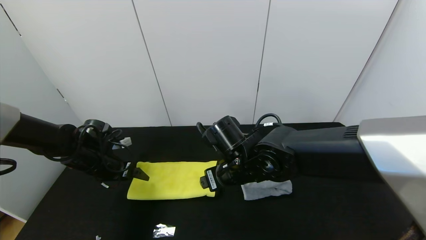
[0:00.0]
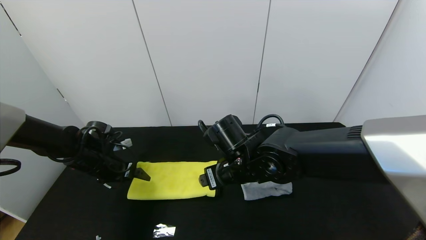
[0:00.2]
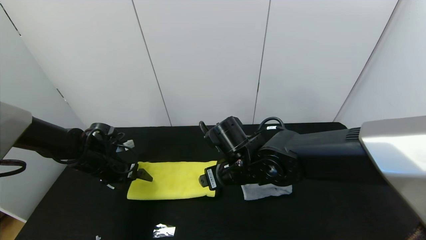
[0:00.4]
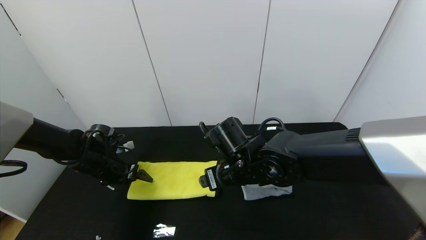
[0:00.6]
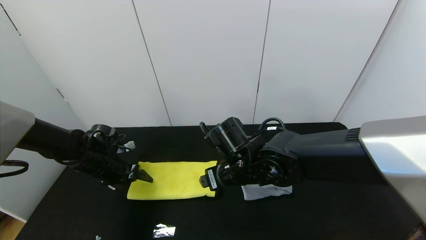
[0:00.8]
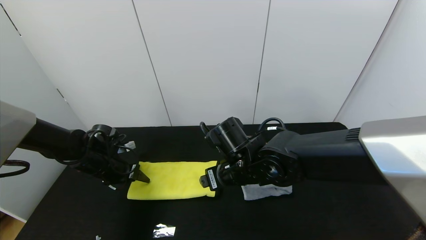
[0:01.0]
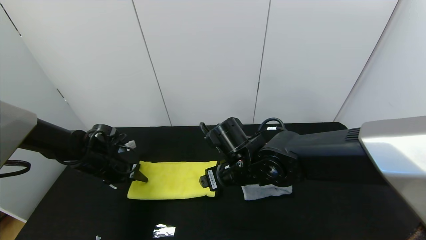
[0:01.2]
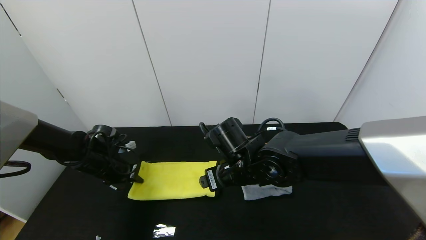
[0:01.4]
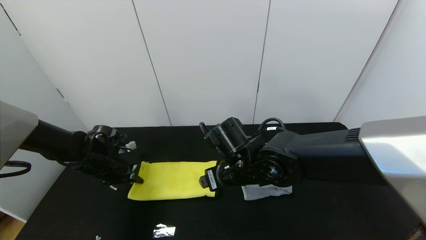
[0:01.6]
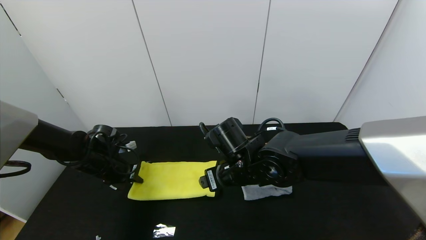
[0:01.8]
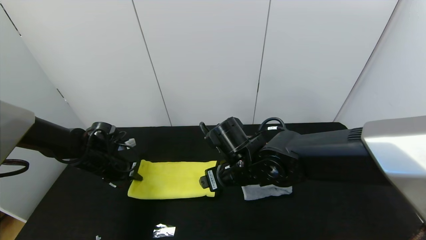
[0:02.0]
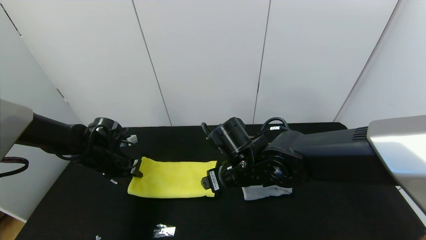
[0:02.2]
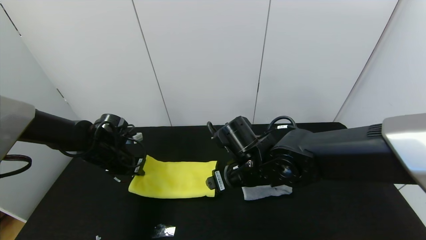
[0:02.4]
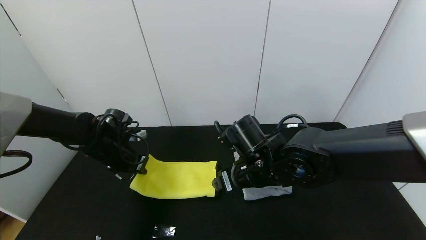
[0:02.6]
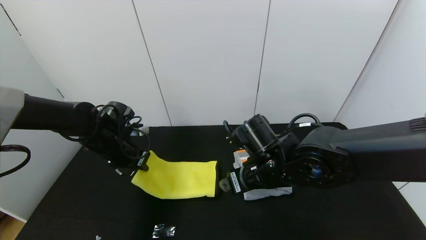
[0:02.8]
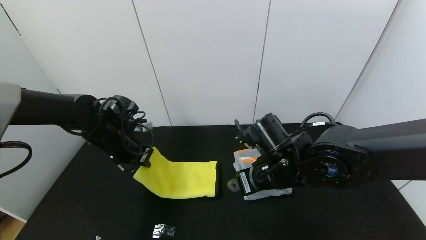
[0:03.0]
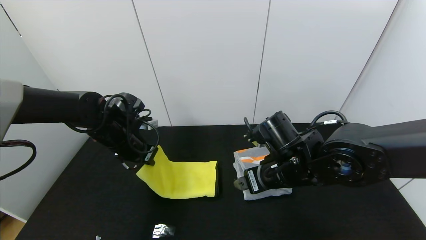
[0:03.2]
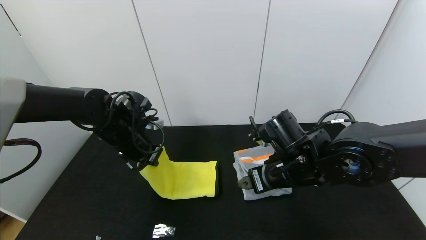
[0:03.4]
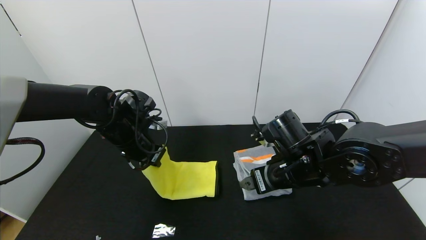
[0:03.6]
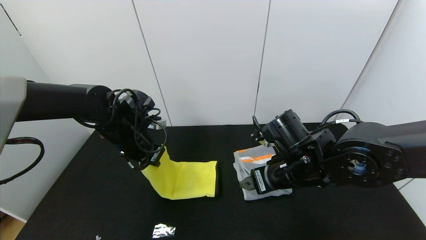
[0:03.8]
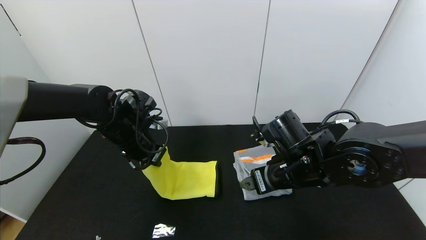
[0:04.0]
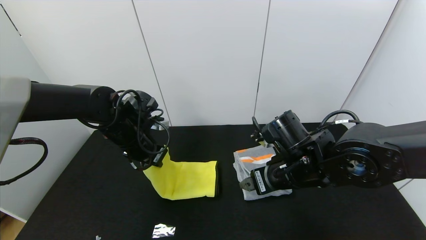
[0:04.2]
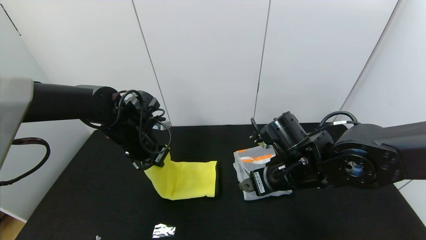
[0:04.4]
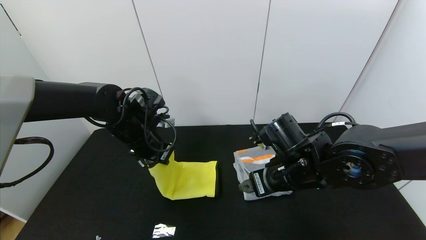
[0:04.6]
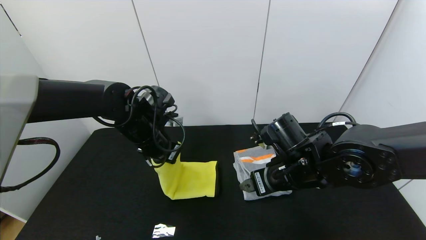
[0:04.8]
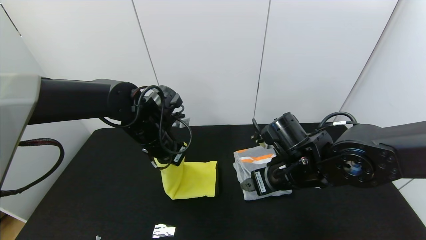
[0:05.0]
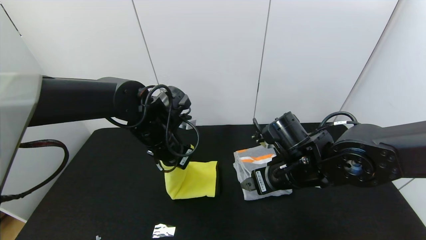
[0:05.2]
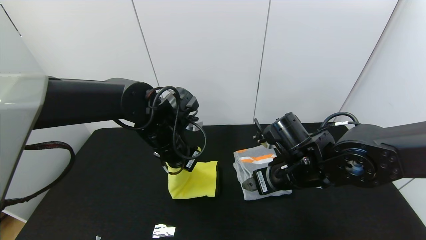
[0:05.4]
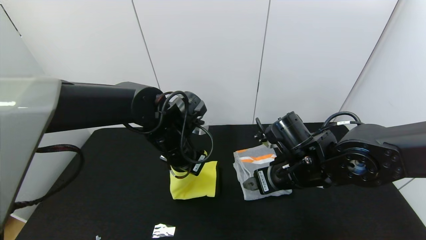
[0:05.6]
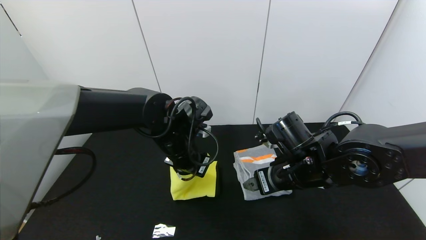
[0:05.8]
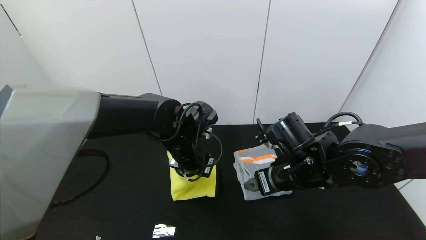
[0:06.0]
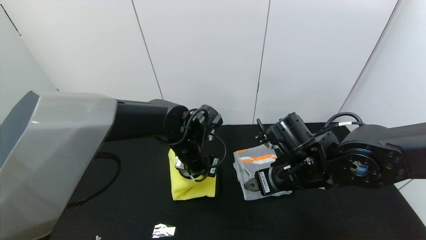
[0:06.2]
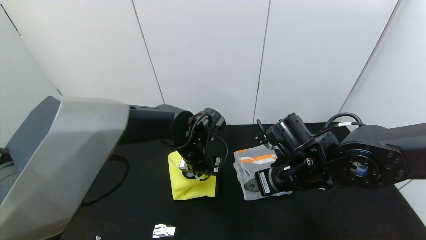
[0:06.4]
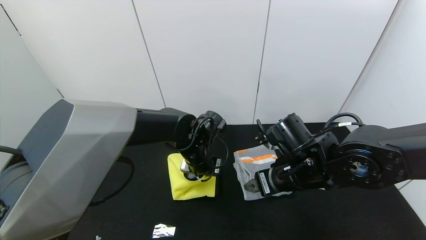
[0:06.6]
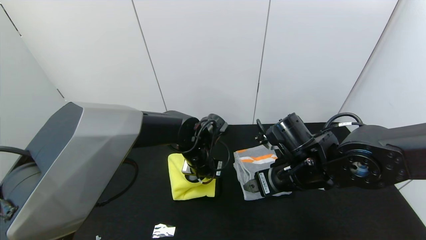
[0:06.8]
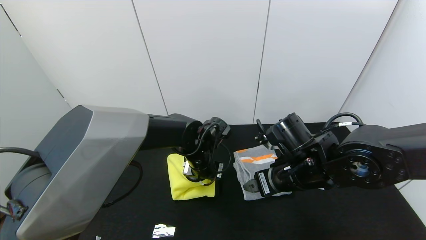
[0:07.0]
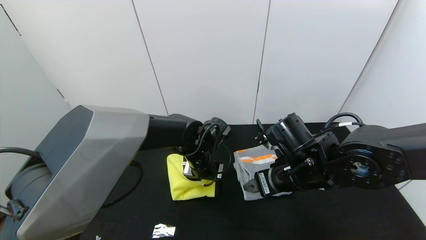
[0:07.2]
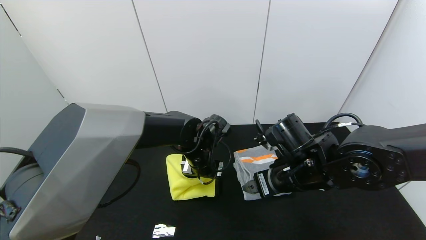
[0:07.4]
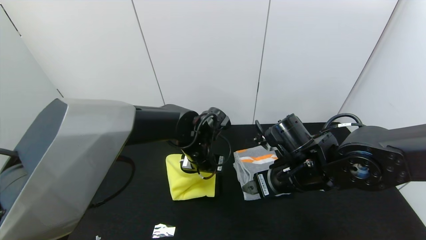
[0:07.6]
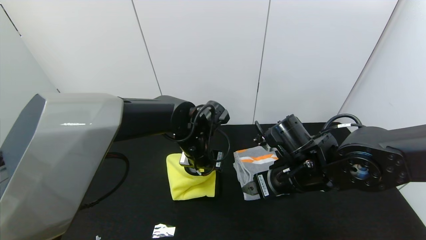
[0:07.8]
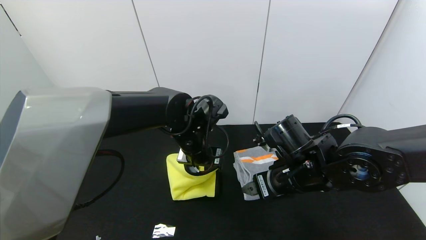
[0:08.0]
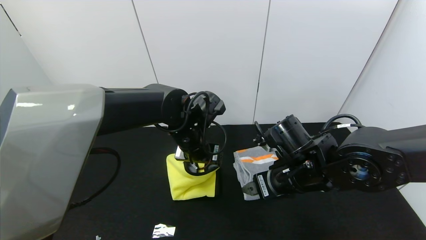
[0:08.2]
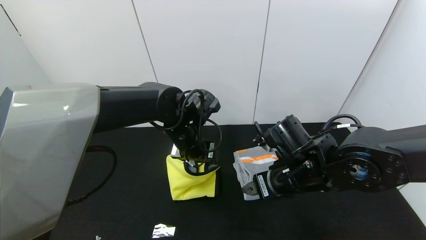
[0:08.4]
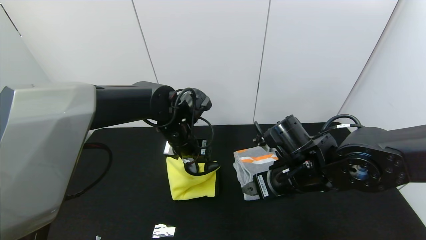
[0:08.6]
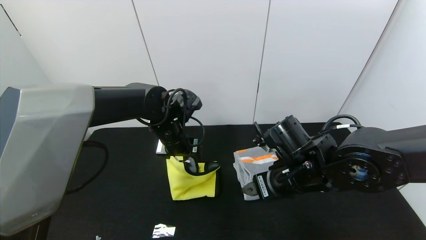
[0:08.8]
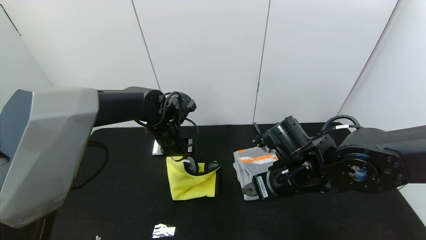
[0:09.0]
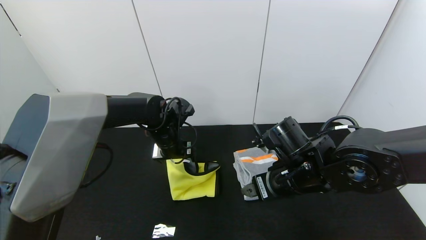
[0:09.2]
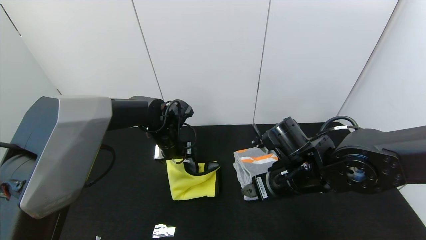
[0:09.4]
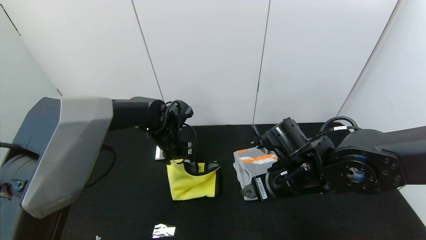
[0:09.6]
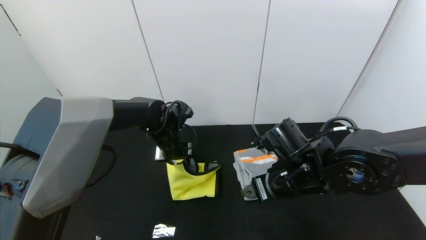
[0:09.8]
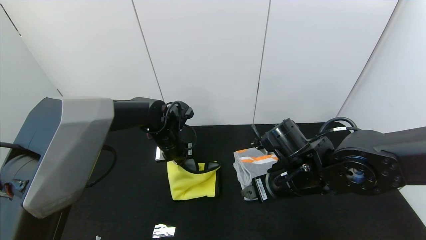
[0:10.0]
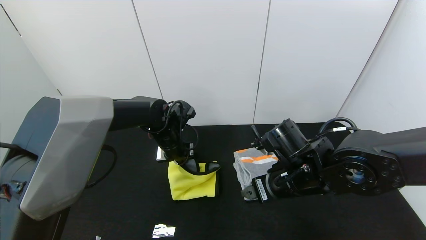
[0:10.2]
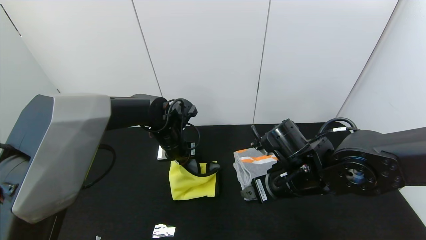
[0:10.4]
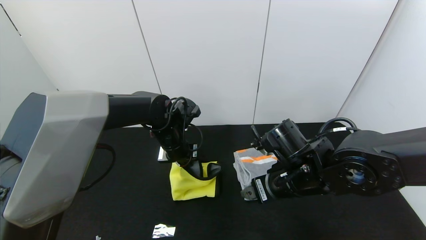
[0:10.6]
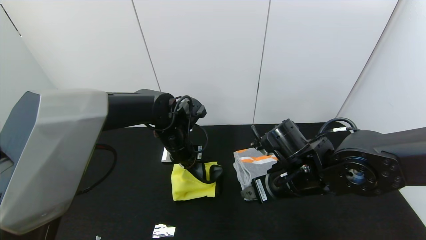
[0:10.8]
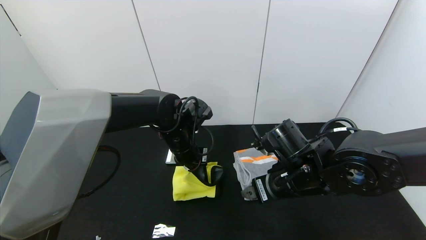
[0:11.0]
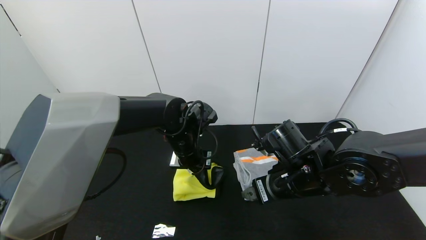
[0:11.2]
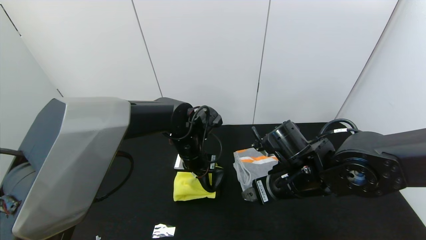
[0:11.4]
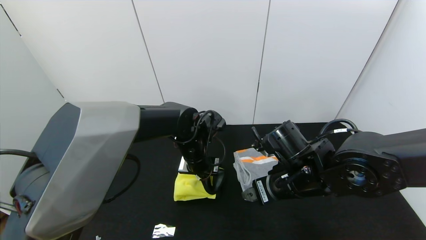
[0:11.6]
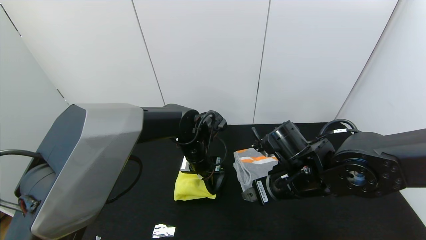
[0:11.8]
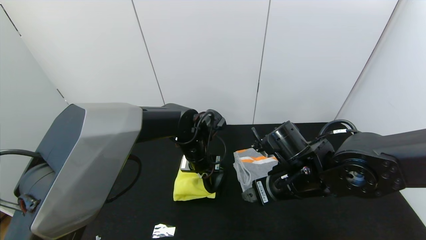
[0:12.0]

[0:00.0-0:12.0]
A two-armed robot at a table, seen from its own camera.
Task of the whole recording: Use the gripper to fold the yellow towel and grey towel in half twice,then put the yellow towel on the grey towel.
0:00.0 to 0:01.6: The left gripper closes its fingers.
0:01.6 to 0:03.0: The left gripper goes about 10 cm upward and to the right, while the right gripper moves to the right, some 5 cm.
0:03.0 to 0:04.4: The left gripper goes approximately 5 cm to the right.
0:04.4 to 0:06.0: The left gripper is displaced to the right by some 10 cm.
0:06.0 to 0:07.6: The left gripper opens.
0:07.6 to 0:09.0: The left gripper goes about 10 cm to the left.
0:09.0 to 0:10.4: The left gripper closes.
0:10.4 to 0:12.0: The left gripper moves to the right, about 5 cm.

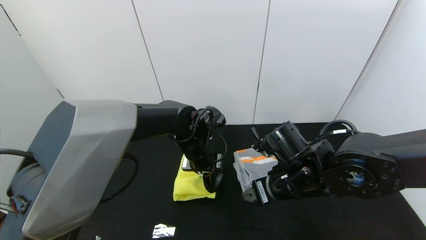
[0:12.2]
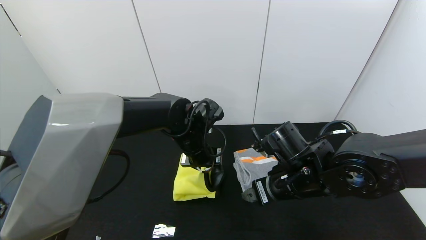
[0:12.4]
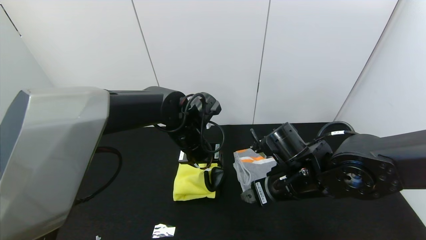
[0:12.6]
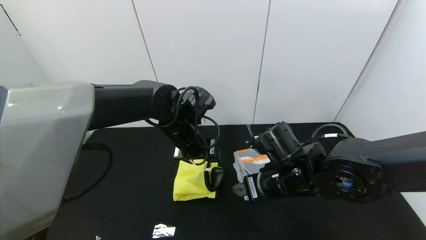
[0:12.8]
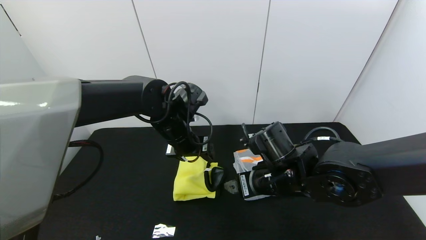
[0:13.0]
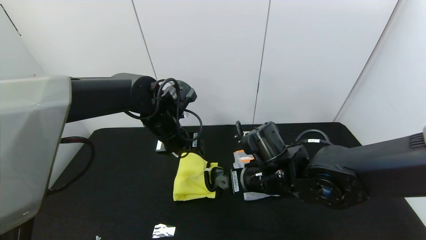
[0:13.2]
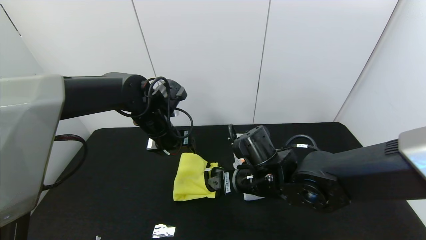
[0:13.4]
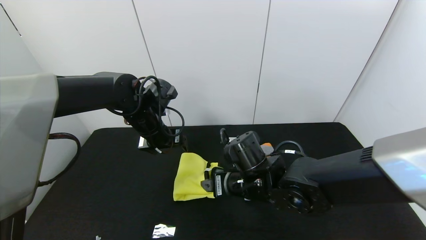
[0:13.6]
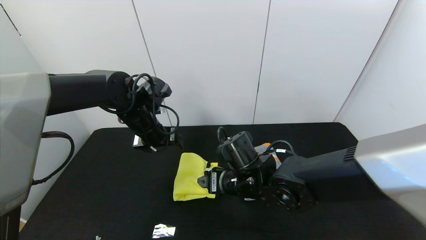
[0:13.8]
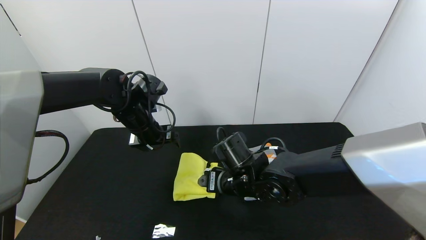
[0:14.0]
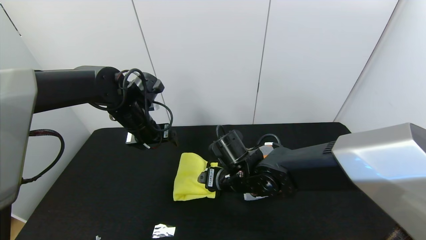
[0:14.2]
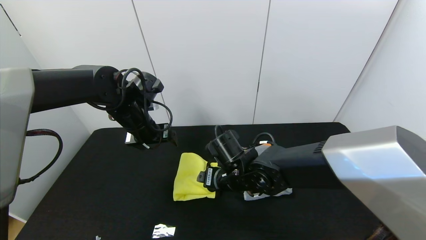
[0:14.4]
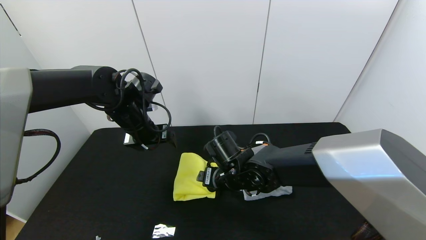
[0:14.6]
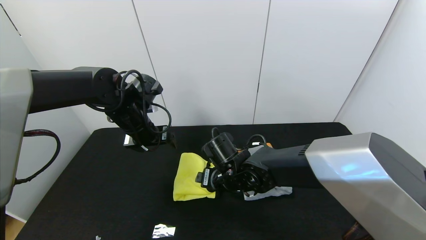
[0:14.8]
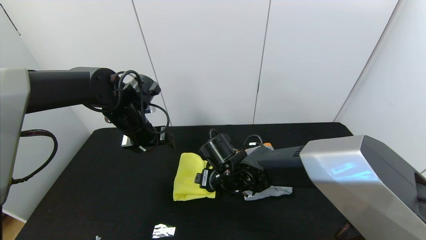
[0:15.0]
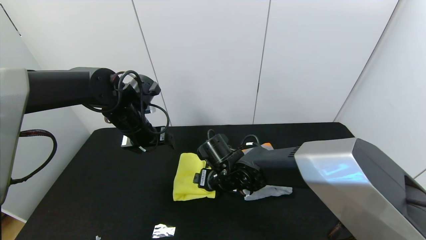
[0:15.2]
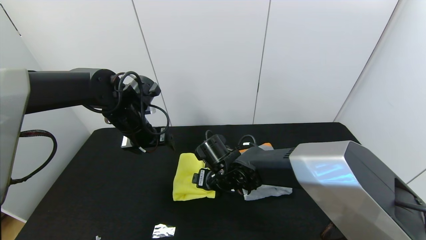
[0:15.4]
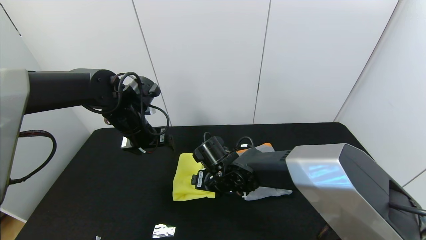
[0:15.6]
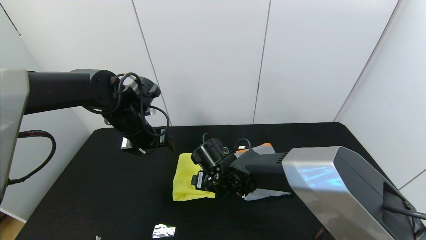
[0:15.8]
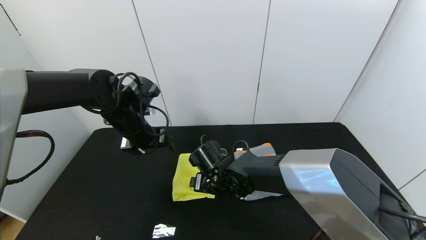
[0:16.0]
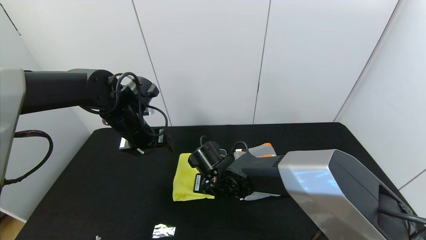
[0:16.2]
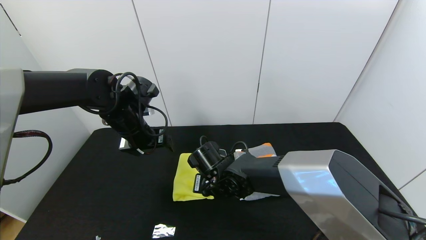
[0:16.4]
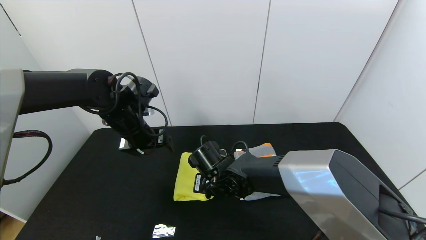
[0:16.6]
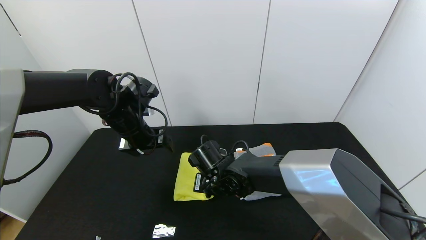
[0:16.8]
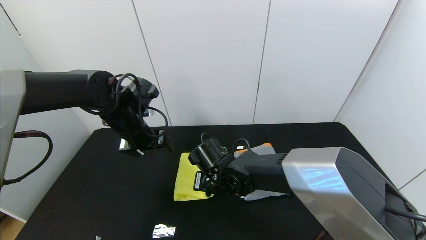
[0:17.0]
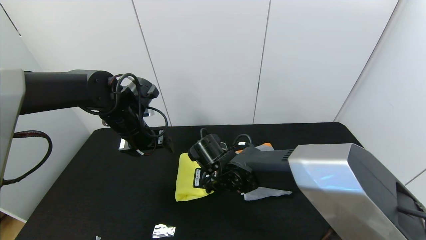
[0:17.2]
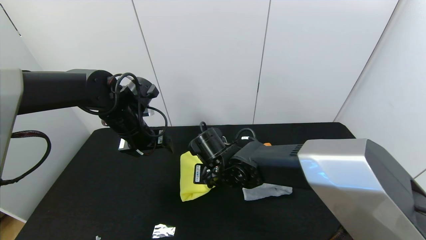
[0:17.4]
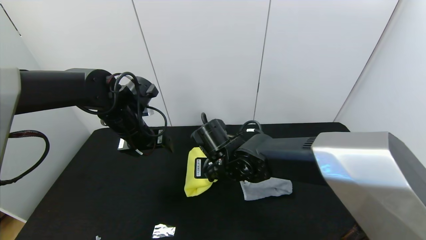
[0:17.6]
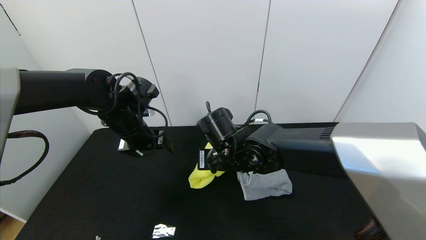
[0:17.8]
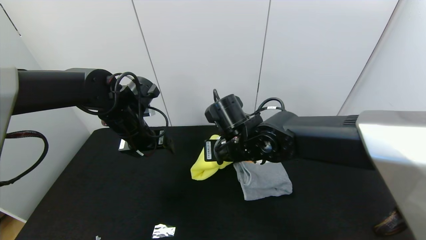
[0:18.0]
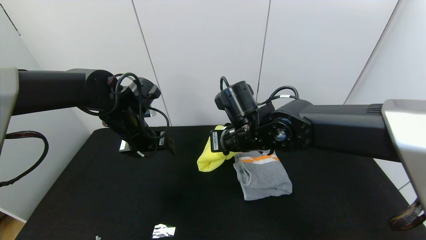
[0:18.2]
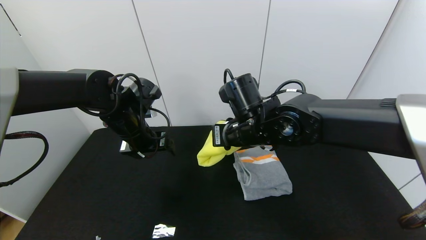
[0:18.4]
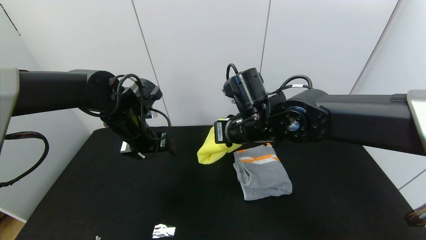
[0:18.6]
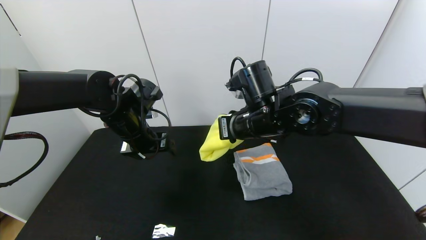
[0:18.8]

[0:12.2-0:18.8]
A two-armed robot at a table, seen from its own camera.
Task of the whole recording: Use the gripper to fold the yellow towel and grey towel in half twice,then put the yellow towel on the grey towel.
0:12.2 to 0:13.8: The right gripper heads to the left, covering approximately 10 cm. Meanwhile the left gripper goes about 15 cm to the left and upward, and opens its fingers.
0:13.8 to 0:15.4: The right gripper ends up approximately 5 cm from where it was.
0:15.4 to 0:17.2: The right gripper closes up.
0:17.2 to 0:18.8: The right gripper heads upward and to the right, covering some 15 cm.
